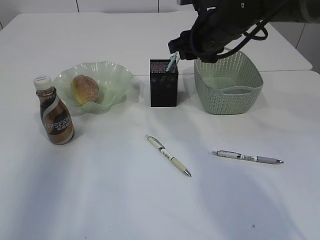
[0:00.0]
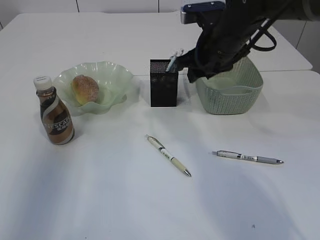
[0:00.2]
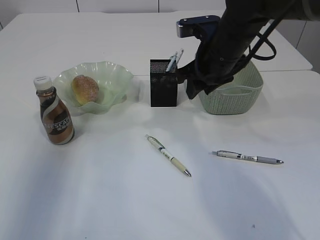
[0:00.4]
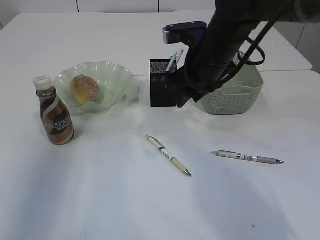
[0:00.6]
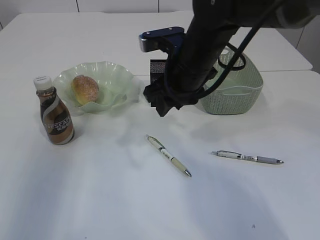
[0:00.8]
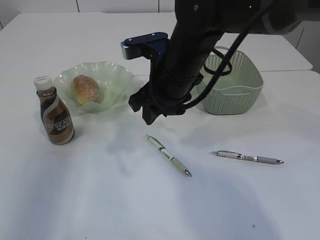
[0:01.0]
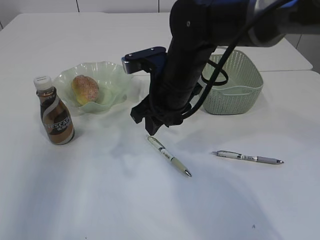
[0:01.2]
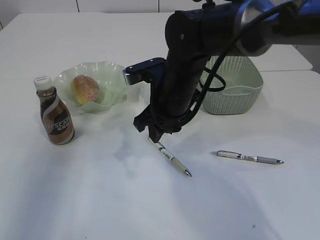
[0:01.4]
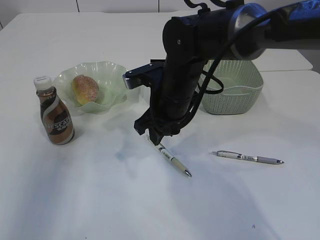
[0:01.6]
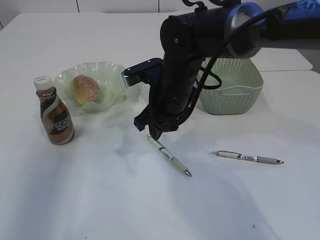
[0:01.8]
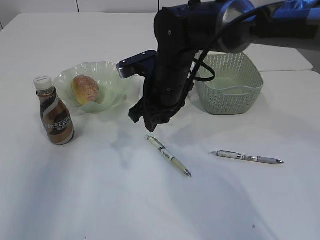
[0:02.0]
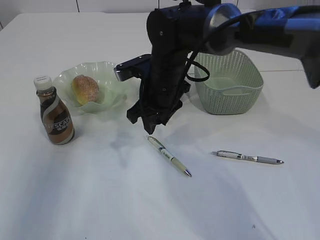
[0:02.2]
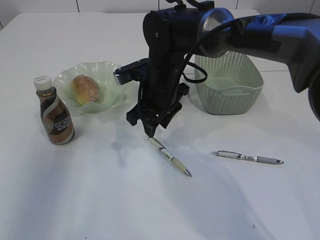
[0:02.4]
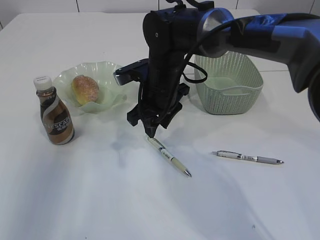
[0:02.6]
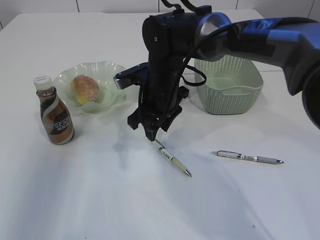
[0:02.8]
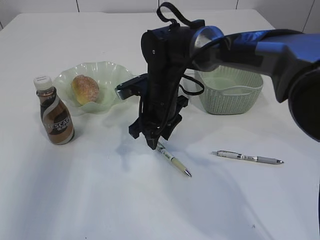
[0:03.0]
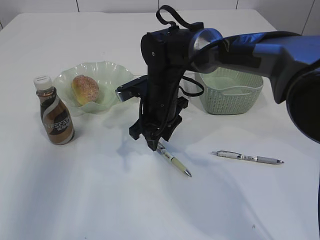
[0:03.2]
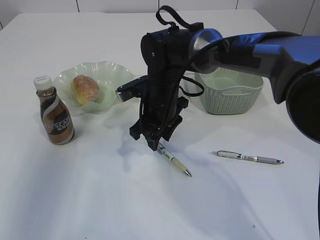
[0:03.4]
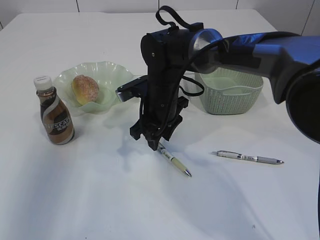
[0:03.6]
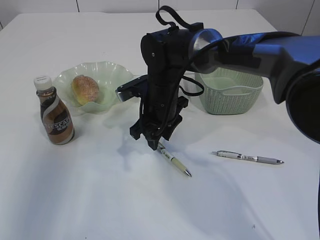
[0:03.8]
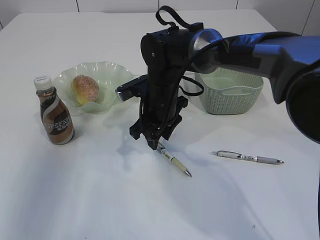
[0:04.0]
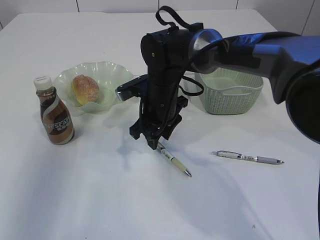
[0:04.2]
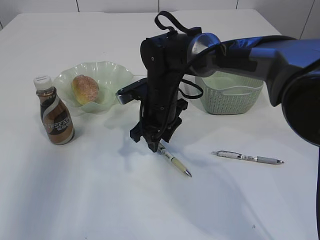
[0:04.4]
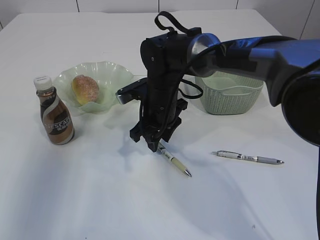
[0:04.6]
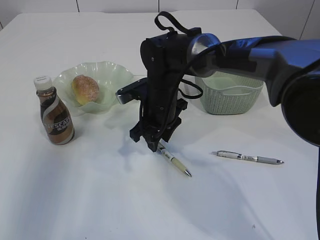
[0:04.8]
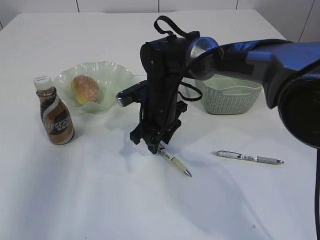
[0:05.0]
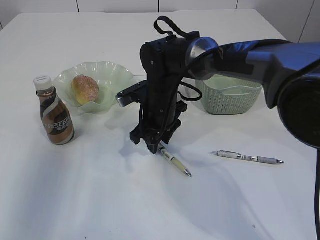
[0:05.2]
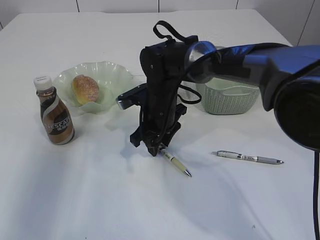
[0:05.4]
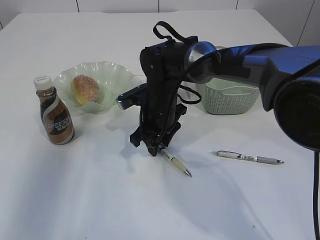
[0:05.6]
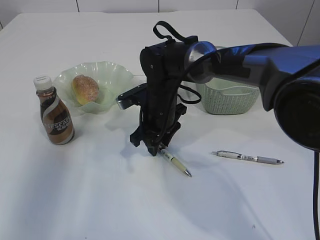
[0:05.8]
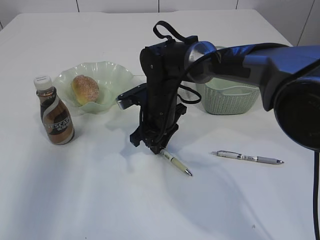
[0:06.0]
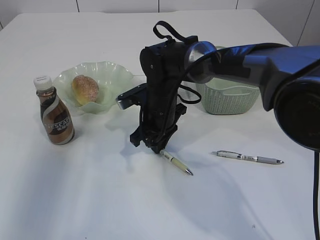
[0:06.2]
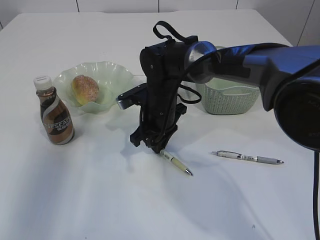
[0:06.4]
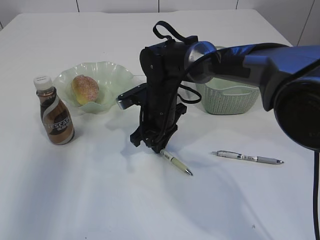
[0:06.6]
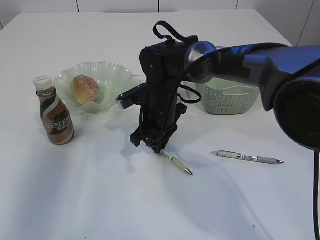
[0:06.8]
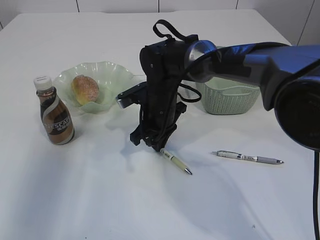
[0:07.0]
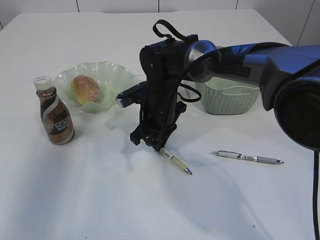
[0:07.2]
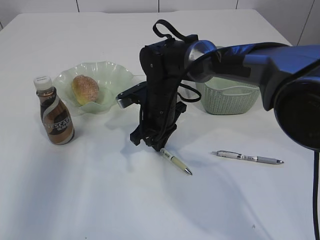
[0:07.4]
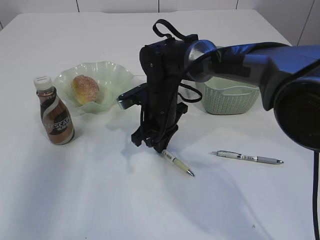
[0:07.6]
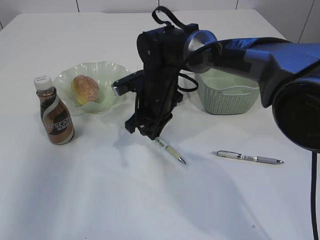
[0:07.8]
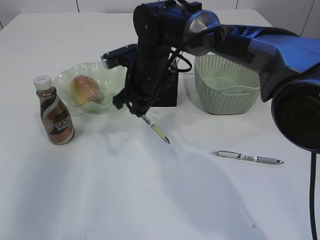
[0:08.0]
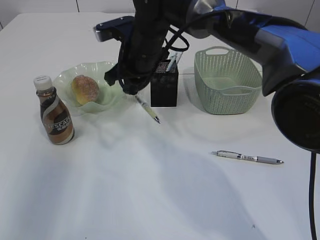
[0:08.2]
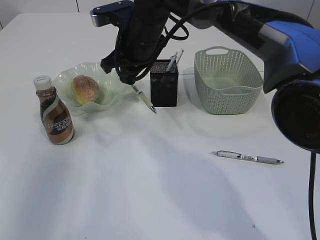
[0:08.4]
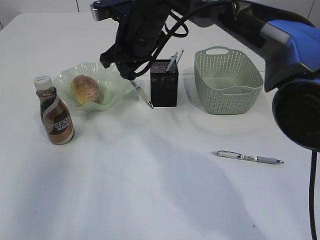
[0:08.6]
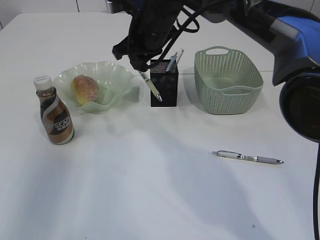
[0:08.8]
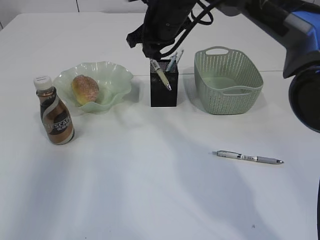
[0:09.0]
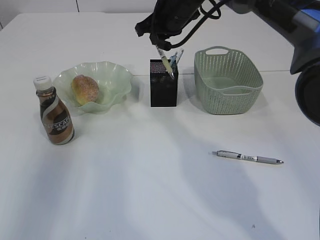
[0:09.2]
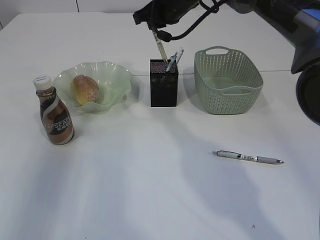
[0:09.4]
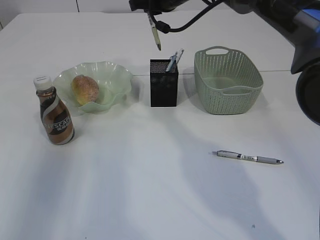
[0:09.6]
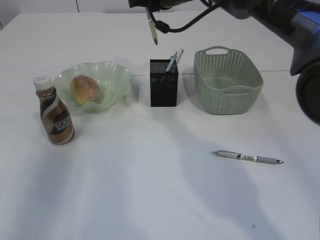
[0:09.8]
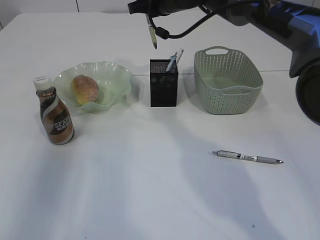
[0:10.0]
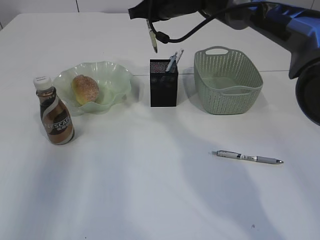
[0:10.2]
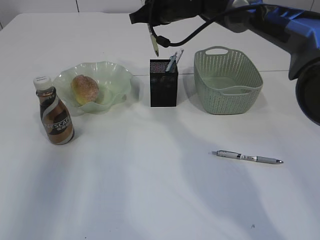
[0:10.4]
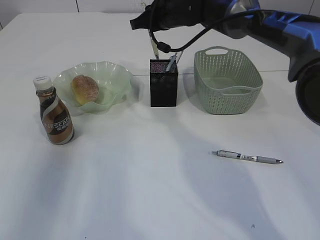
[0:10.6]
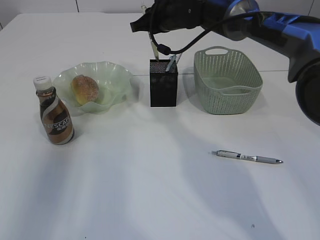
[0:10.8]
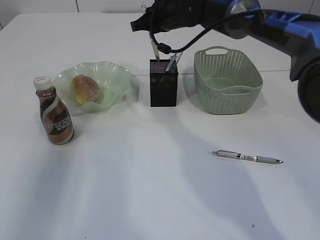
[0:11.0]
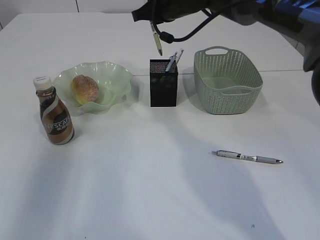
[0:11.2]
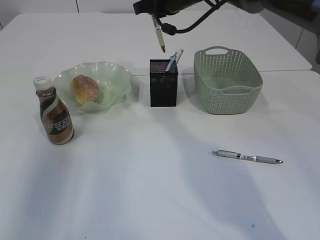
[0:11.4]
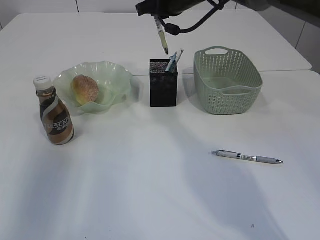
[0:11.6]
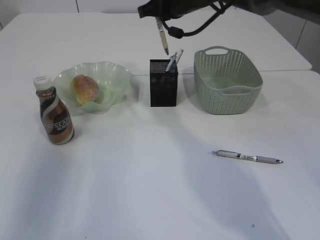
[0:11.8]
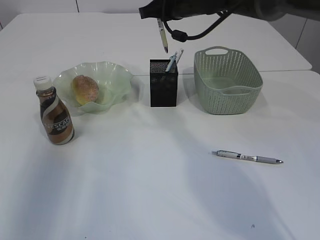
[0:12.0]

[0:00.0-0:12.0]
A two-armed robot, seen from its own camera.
Step, 0:00.0 to 0:08.4: Pick up the pen with right arm.
0:00.0 to 0:01.6: The right gripper heads to the left, downward and backward, covering some 10 cm.
0:01.6 to 0:03.0: The right gripper changes place by about 5 cm.
0:03.0 to 0:04.4: Both grippers stay put.
0:04.4 to 0:06.0: The grippers stay close to where they were, moving slightly.
0:06.0 to 0:07.6: Neither gripper changes place.
0:07.6 to 0:09.0: The right gripper goes about 15 cm upward and forward.
0:10.4 to 0:12.0: The grippers make only small movements.

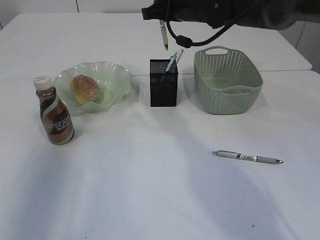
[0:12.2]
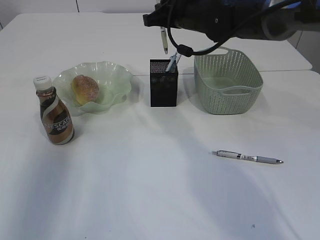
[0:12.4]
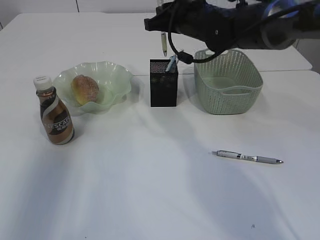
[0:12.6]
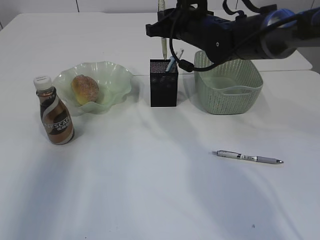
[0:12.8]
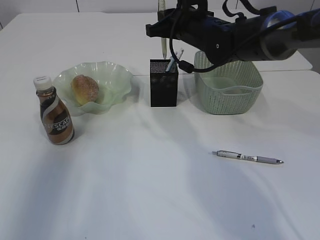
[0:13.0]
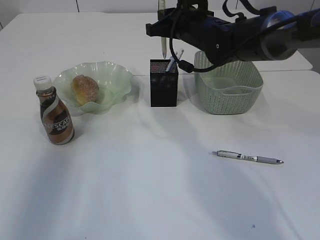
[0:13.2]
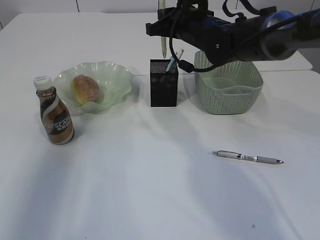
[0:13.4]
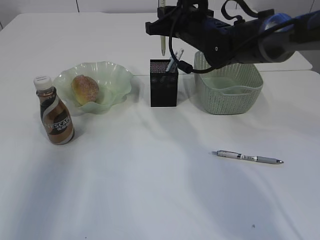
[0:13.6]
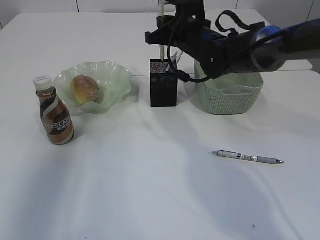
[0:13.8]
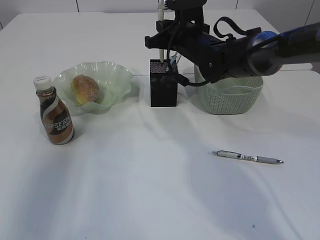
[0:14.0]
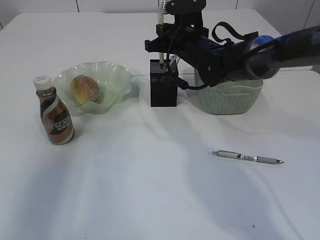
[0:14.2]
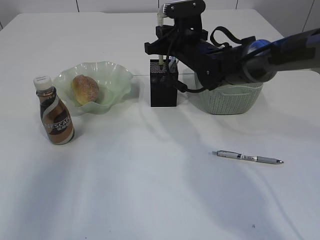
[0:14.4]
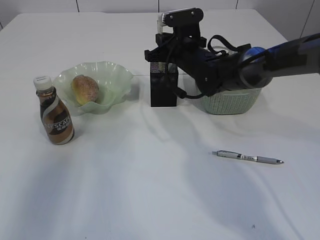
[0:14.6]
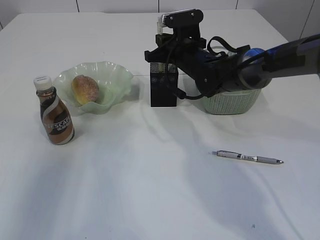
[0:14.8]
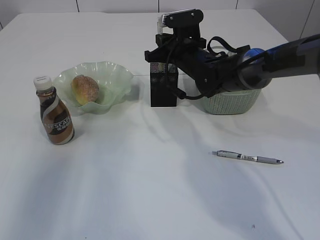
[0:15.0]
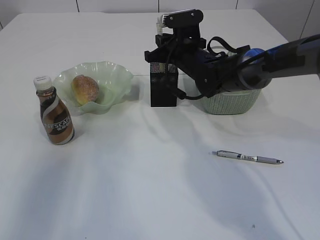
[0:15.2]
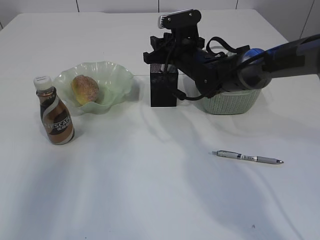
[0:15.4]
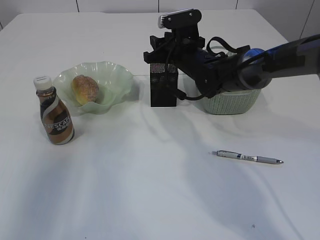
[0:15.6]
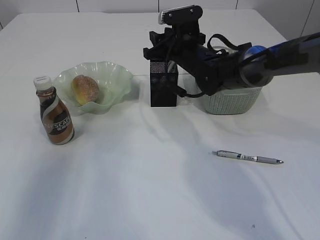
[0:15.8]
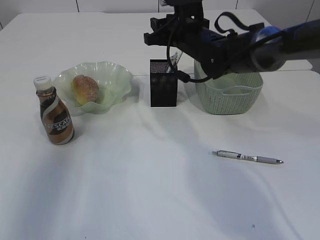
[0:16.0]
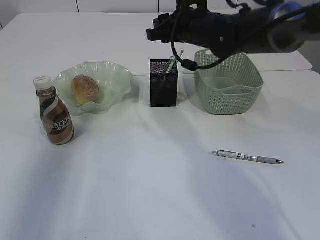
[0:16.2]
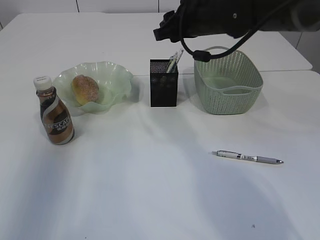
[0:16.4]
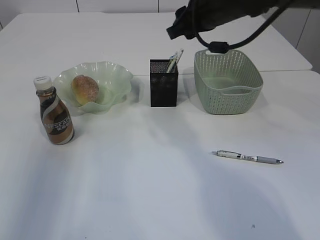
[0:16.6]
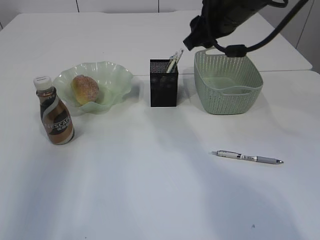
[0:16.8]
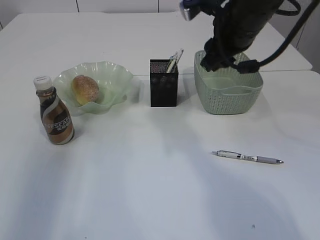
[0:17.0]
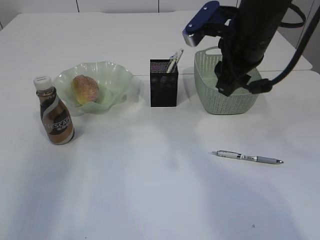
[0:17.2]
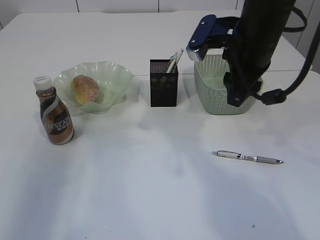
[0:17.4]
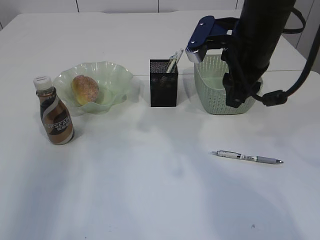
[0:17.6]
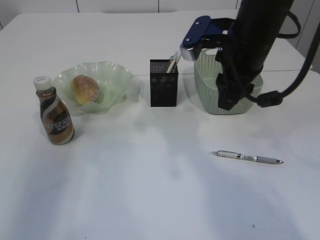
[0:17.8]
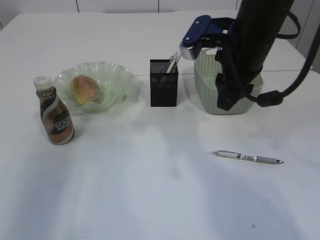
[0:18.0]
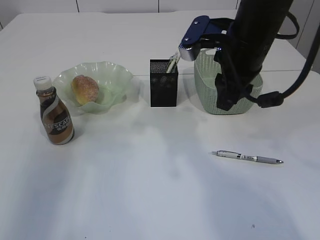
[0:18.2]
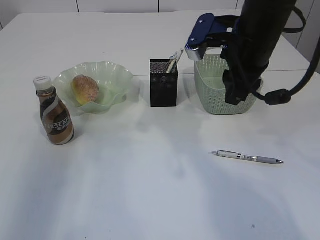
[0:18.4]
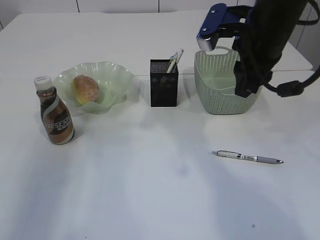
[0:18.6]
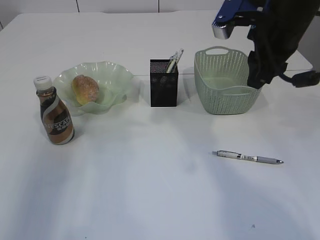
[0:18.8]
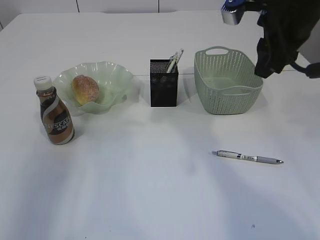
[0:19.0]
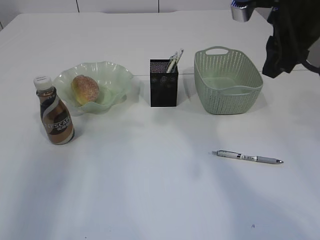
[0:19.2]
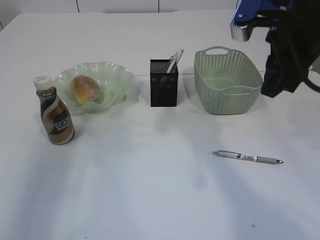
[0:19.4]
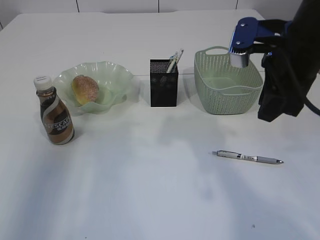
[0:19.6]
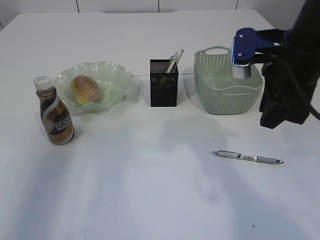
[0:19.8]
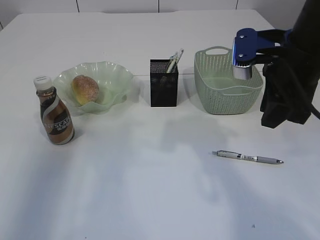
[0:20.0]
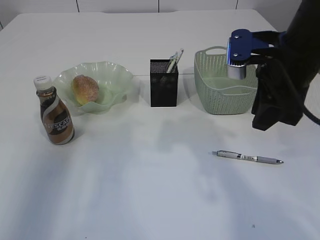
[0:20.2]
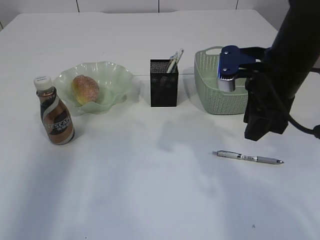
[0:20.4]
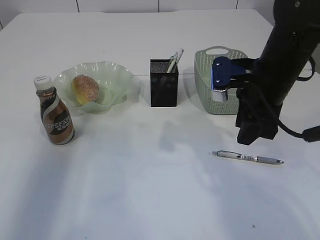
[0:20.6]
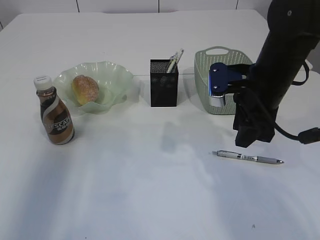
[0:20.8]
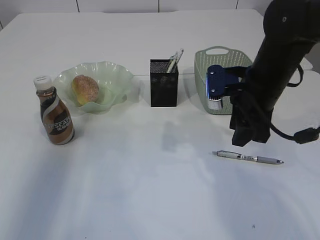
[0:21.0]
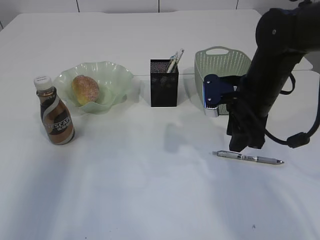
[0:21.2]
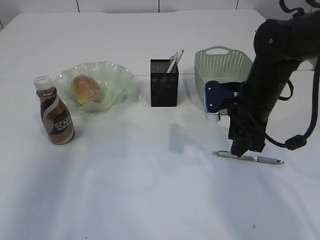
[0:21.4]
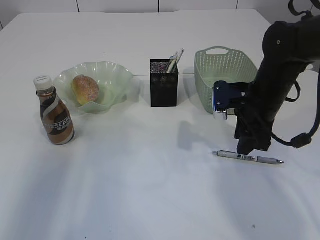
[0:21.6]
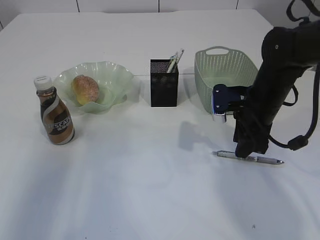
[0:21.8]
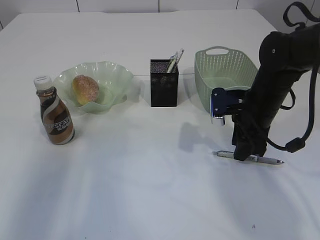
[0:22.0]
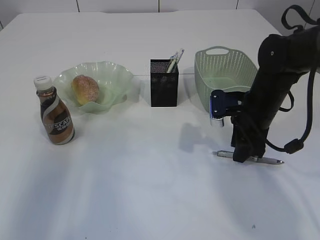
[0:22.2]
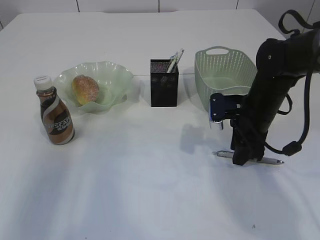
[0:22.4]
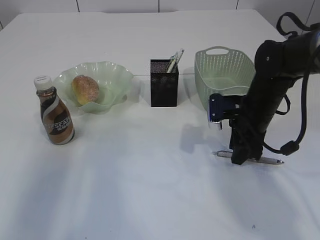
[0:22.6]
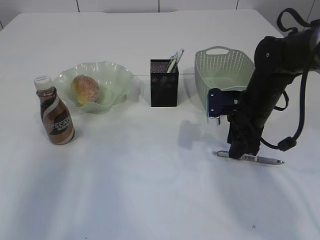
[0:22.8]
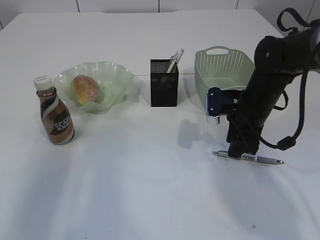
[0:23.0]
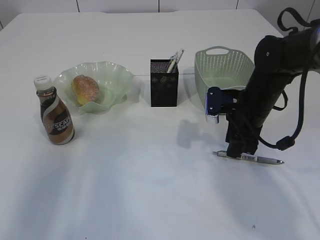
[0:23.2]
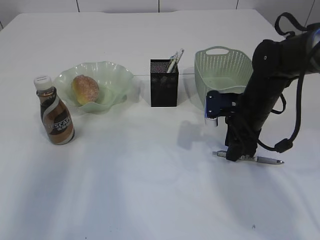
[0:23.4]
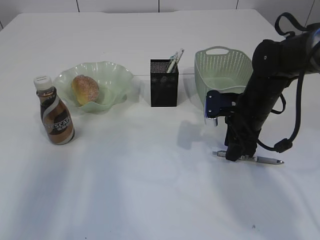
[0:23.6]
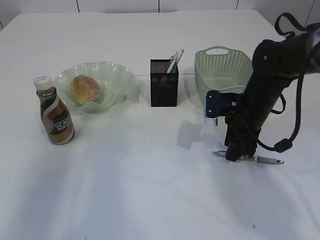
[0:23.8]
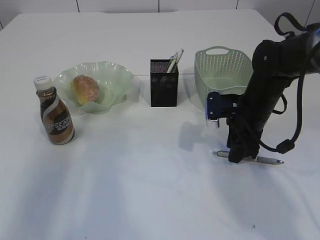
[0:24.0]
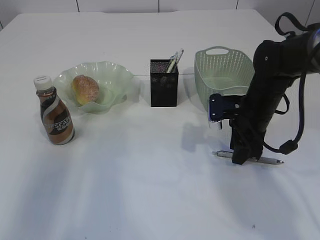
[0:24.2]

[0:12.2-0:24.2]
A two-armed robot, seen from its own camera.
Step, 0:12.2 to 0:16.6: Place the pen into the pen holder.
0:12.2 to 0:13.8: The right gripper travels downward by approximately 5 cm.
0:13.8 to 0:15.2: The grippers make only small movements.
0:15.2 to 0:16.6: The right gripper goes some 15 cm upward and backward, and opens.
0:16.6 to 0:18.2: The right gripper travels backward by about 10 cm.
0:18.2 to 0:19.8: The right gripper heads to the right, covering roughly 5 cm.
0:19.8 to 0:21.2: The right gripper is displaced downward and forward by approximately 10 cm.
0:21.2 to 0:22.6: The right gripper is displaced downward by about 5 cm.
0:22.6 to 0:24.2: Both grippers stay about where they are.
